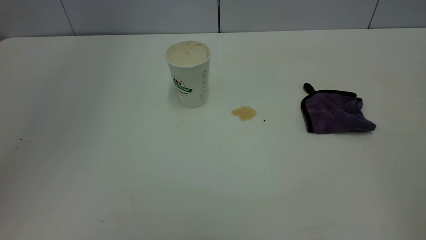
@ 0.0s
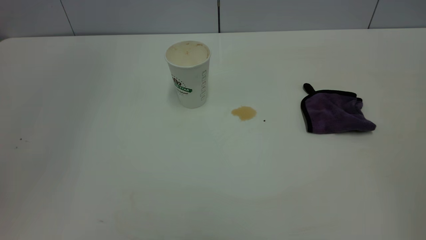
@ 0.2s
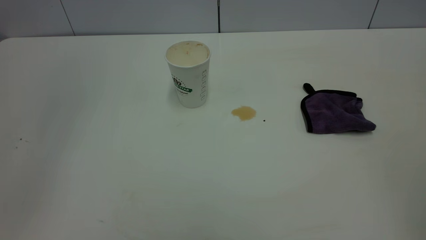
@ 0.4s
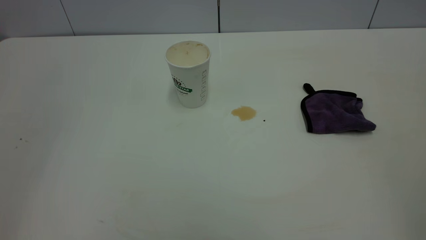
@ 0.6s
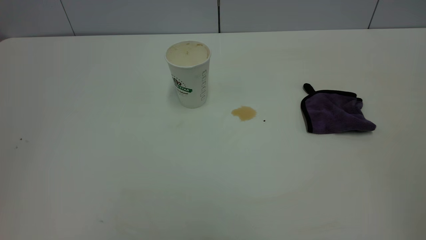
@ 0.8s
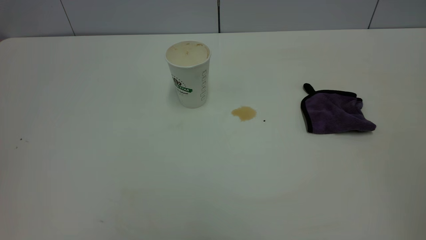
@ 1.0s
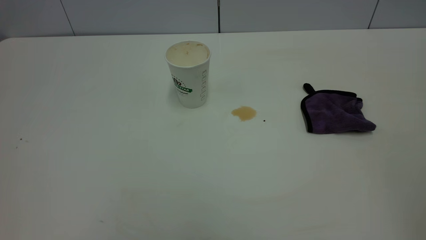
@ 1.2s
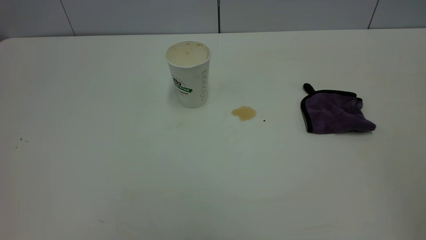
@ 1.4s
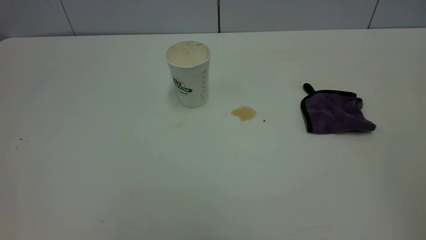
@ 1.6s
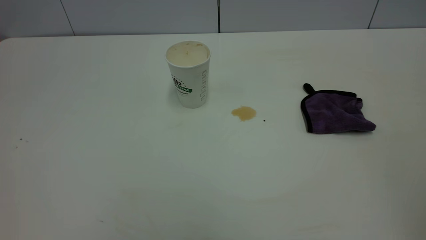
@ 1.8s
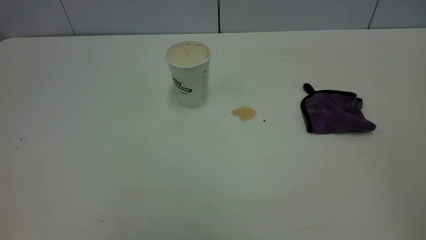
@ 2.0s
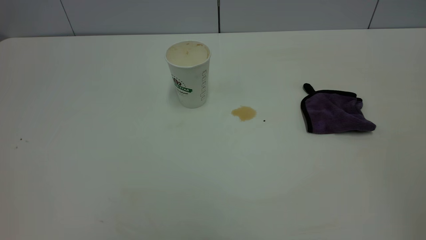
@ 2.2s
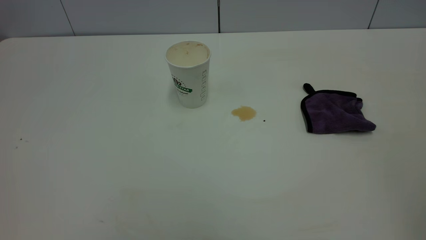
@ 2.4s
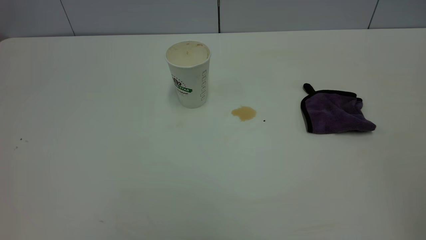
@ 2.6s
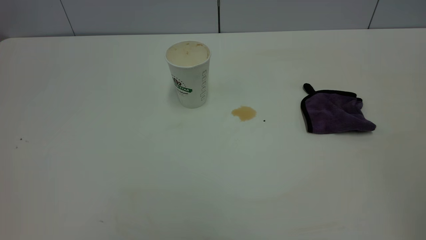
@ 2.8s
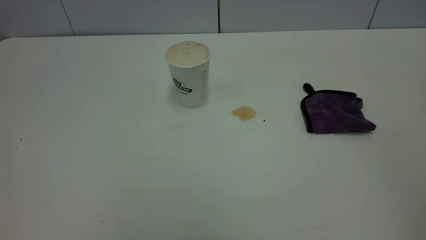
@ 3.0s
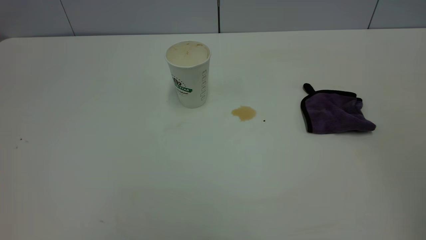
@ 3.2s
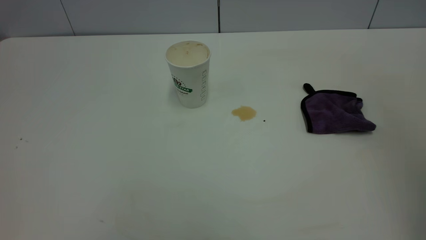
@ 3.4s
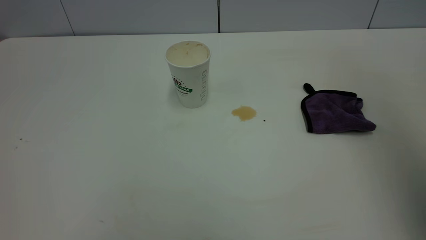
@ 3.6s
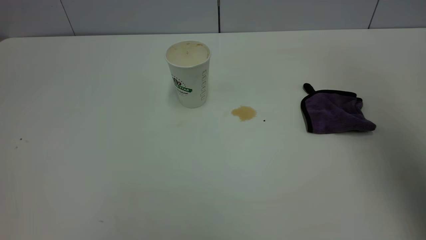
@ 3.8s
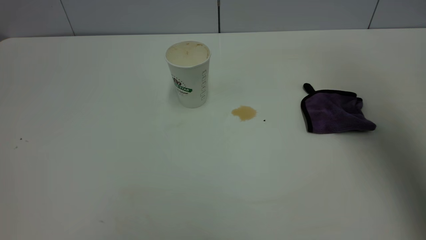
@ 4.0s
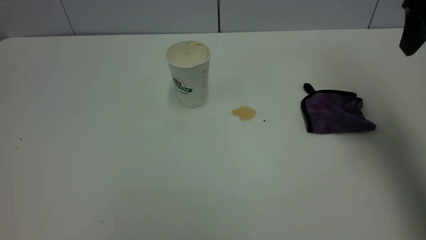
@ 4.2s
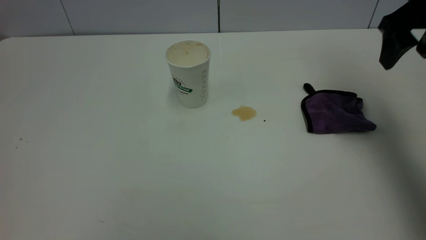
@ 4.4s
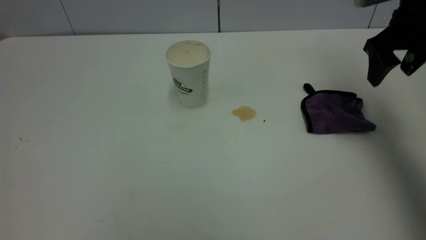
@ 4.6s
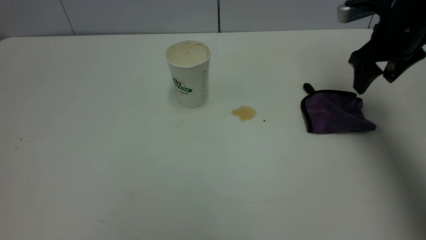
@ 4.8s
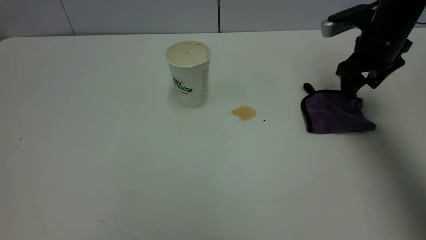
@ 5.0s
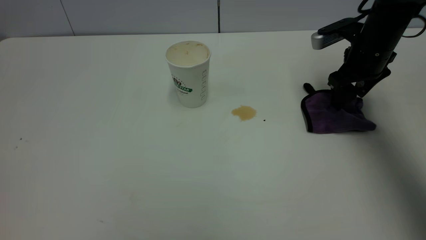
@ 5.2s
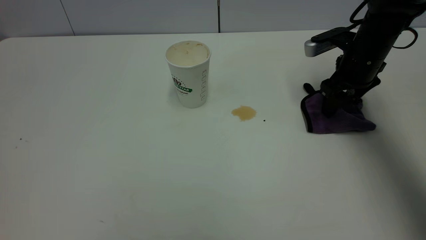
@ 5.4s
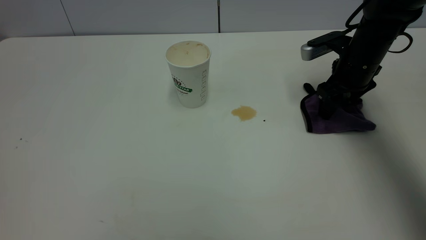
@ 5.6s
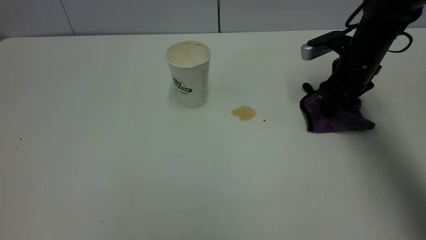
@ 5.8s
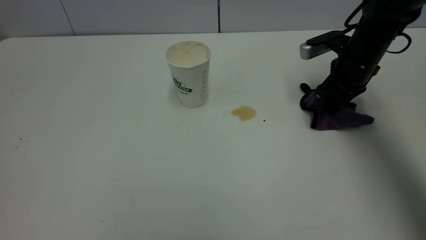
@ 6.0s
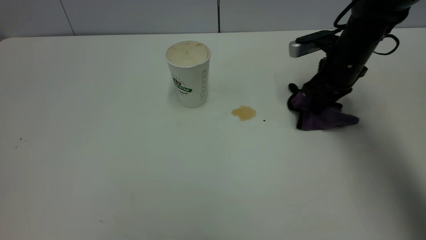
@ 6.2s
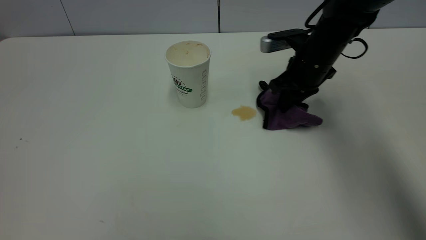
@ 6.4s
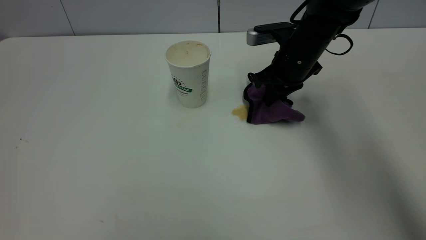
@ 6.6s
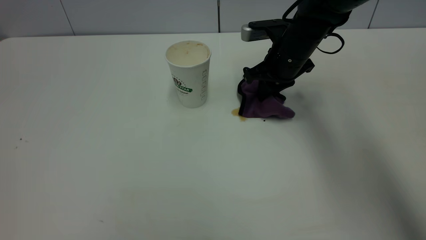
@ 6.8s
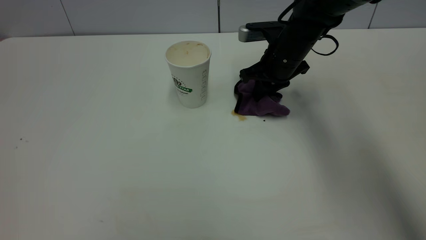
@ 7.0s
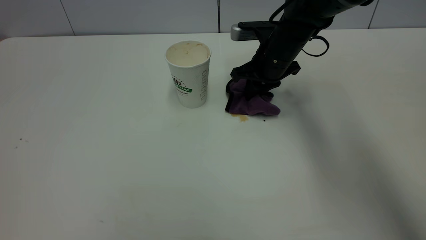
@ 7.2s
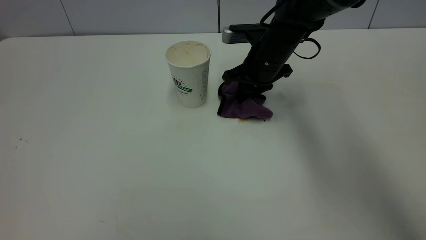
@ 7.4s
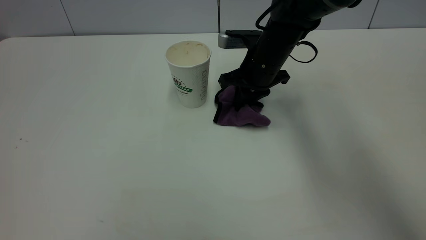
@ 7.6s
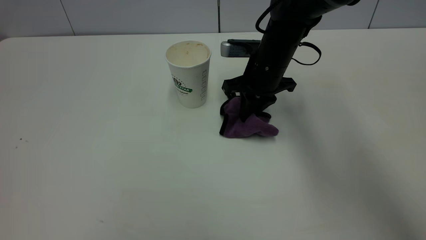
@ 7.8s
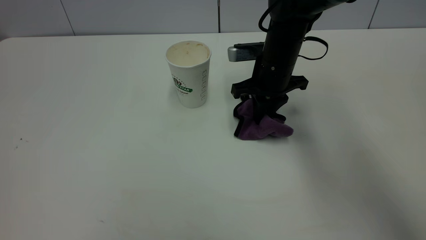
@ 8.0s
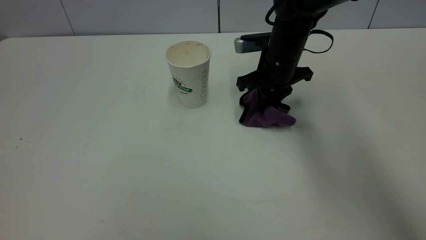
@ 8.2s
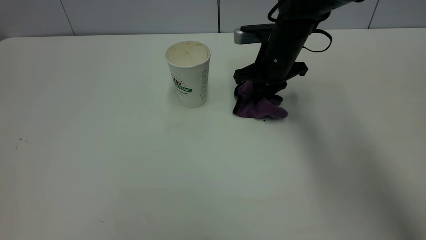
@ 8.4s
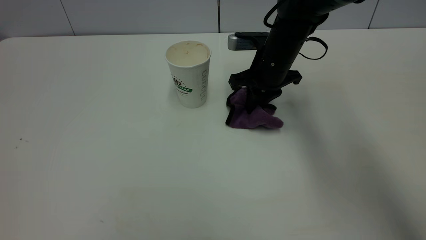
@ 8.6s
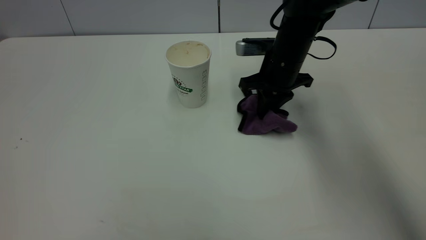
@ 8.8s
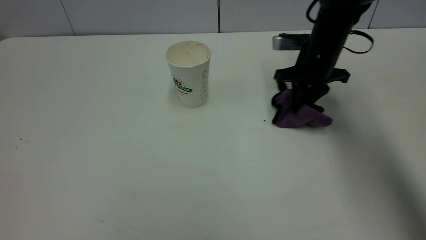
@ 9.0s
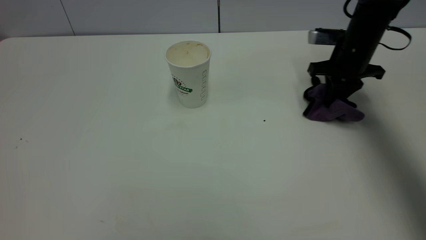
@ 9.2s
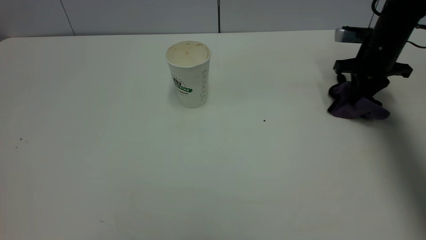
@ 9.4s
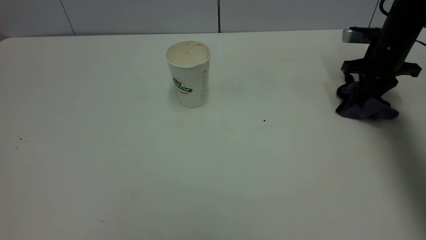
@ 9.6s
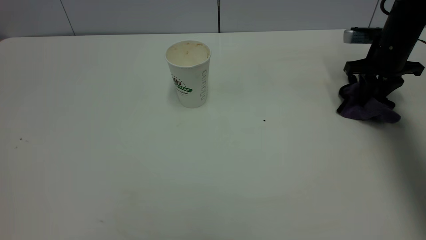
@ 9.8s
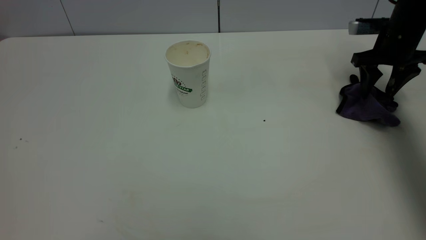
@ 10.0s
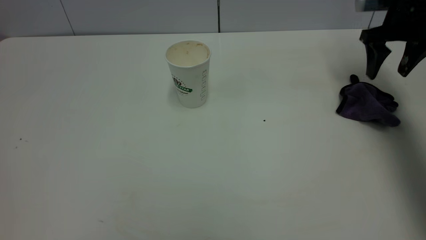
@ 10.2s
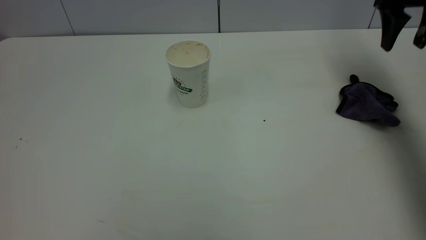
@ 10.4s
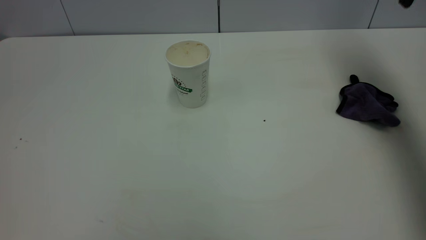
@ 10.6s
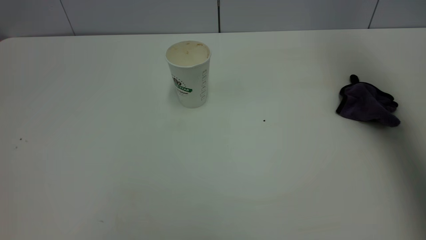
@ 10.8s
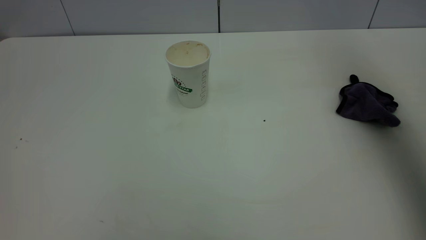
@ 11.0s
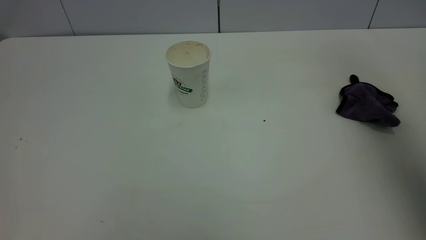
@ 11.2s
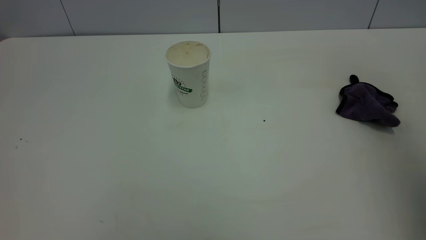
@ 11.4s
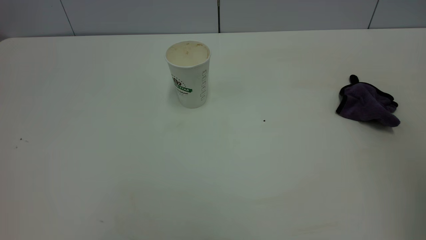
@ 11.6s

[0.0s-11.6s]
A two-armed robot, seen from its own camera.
Task of the whole recording: the left gripper pick up the fallen cup and place it upright, the right gripper grasp the purple rag and wipe the tea stain on the table, the right gripper put the purple rag back in its original position.
Step, 0.0s to 10.2s: Wipe the stains off the table with a rag.
2.8s to 4.4s: The right gripper travels forward by approximately 40 cm, and opens up.
4.4s to 5.8s: The right gripper moves downward and forward, some 15 cm, and closes.
5.8s to 7.2s: The right gripper shifts approximately 15 cm to the left, and closes its fingers.
7.2s to 8.8s: The grippers move only a little.
8.8s to 10.2s: The right gripper heads to the right and upward, covering some 20 cm, and opens its fingers.
10.2s to 11.6s: The right gripper goes approximately 40 cm backward and upward.
